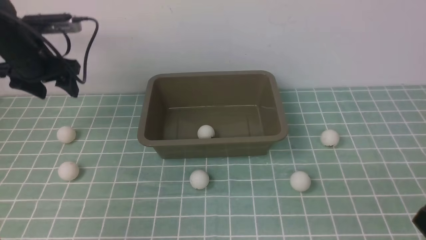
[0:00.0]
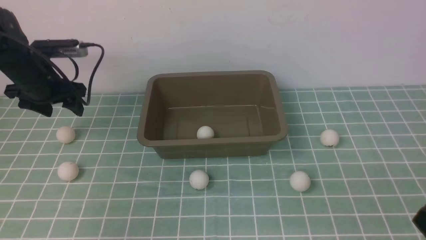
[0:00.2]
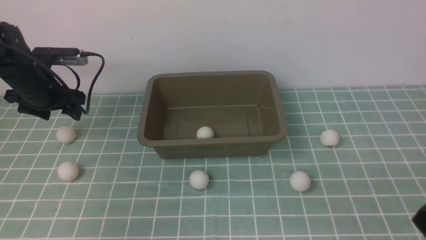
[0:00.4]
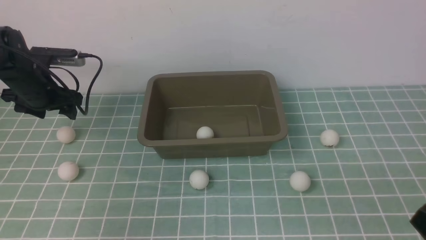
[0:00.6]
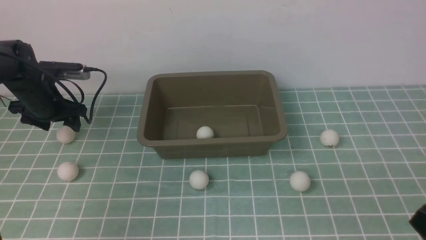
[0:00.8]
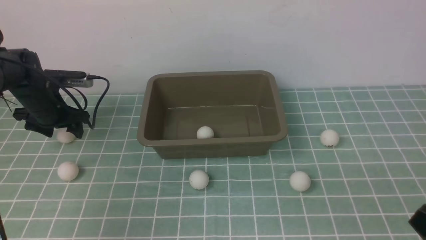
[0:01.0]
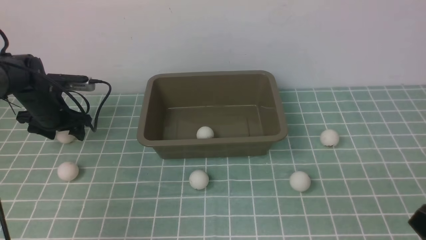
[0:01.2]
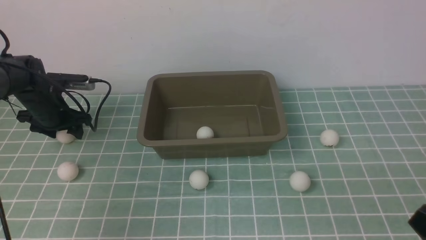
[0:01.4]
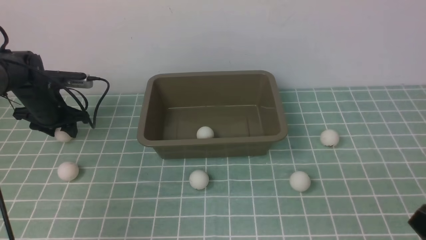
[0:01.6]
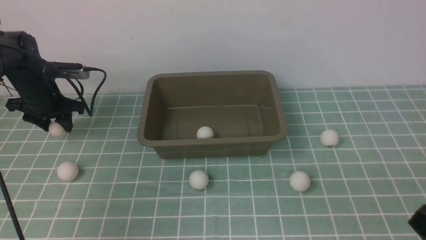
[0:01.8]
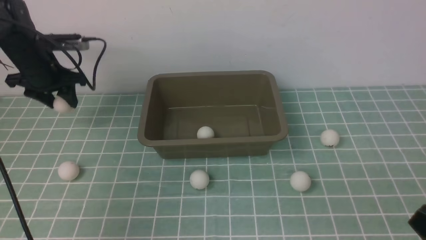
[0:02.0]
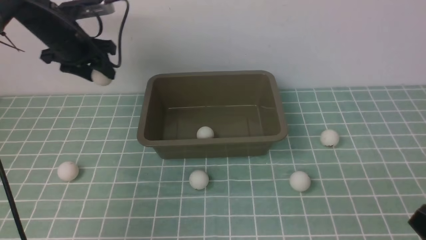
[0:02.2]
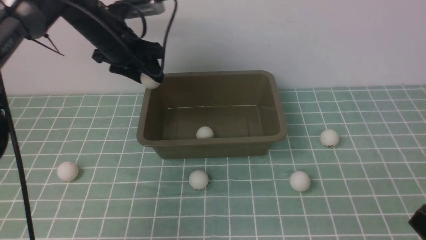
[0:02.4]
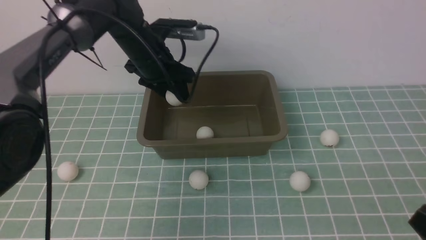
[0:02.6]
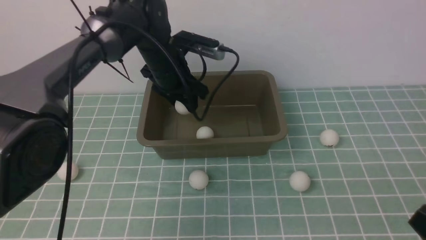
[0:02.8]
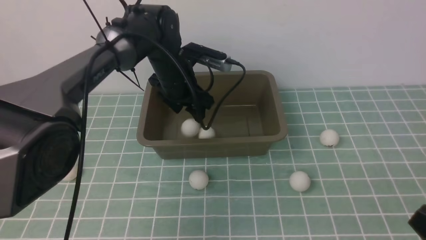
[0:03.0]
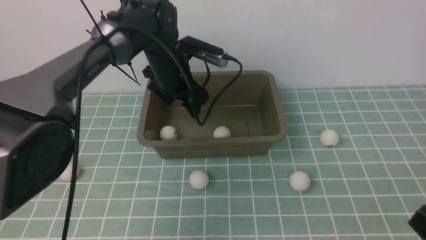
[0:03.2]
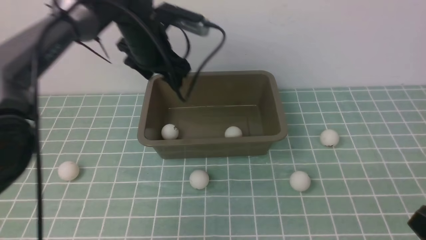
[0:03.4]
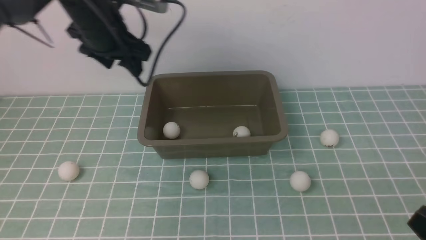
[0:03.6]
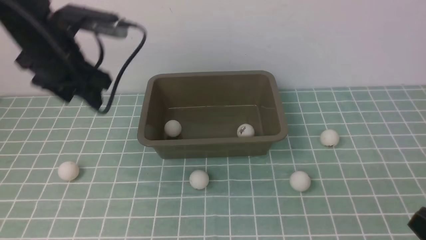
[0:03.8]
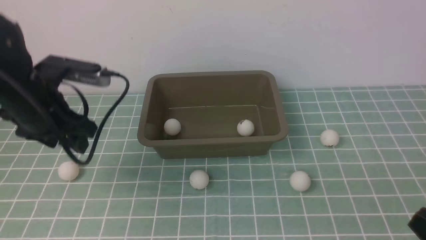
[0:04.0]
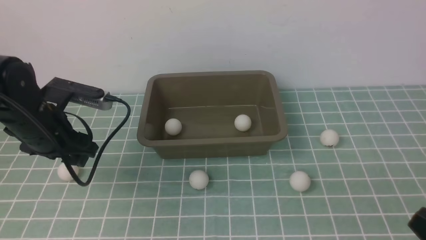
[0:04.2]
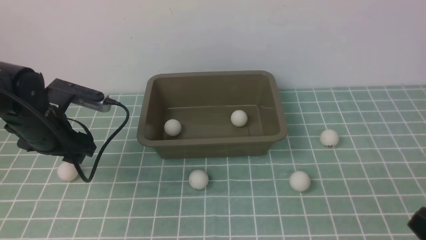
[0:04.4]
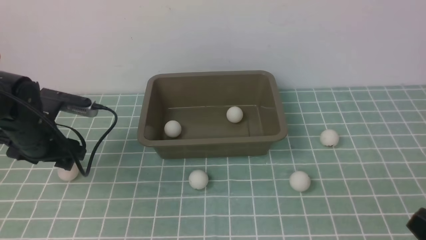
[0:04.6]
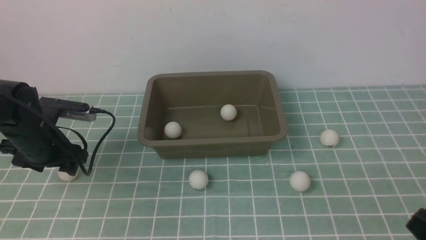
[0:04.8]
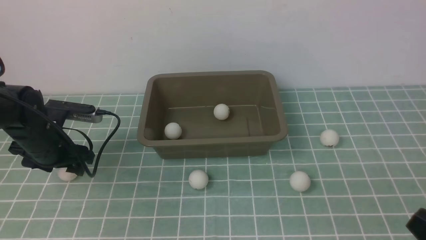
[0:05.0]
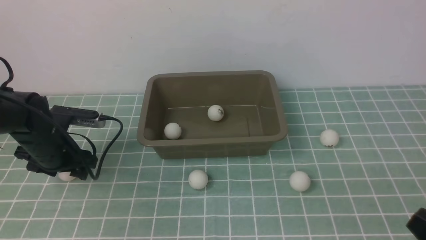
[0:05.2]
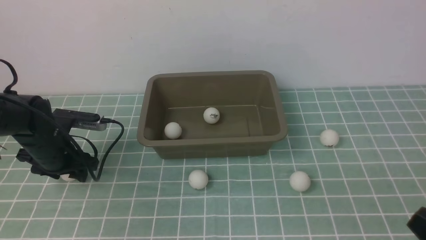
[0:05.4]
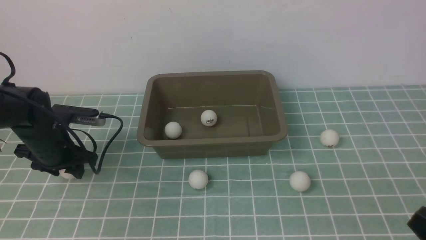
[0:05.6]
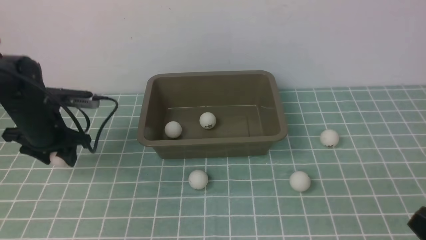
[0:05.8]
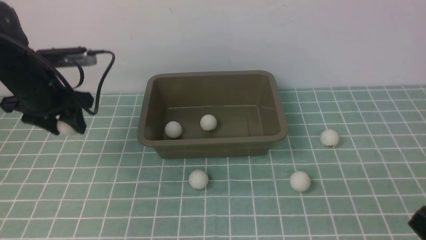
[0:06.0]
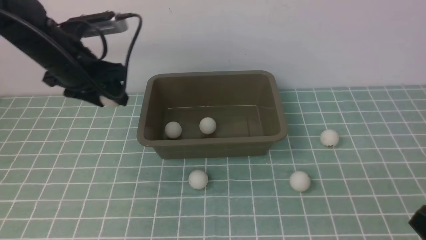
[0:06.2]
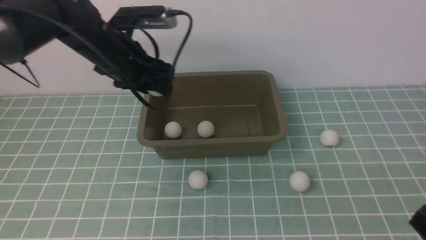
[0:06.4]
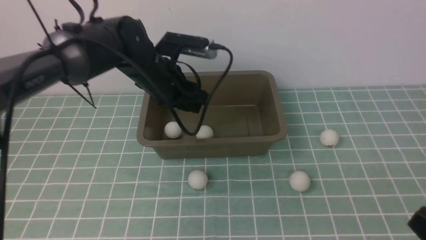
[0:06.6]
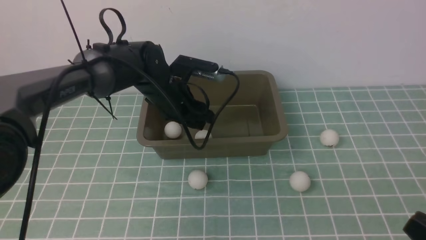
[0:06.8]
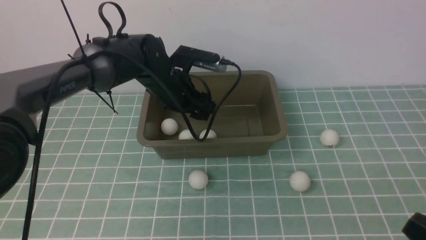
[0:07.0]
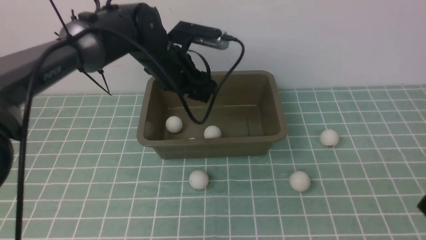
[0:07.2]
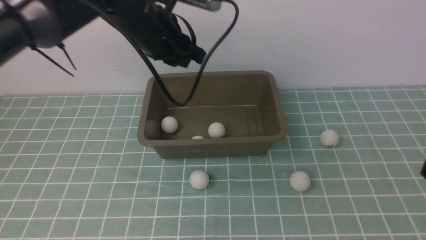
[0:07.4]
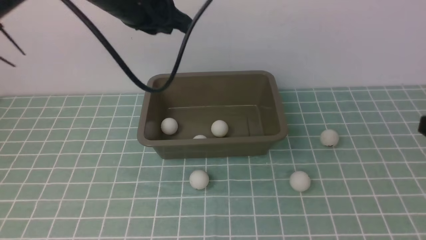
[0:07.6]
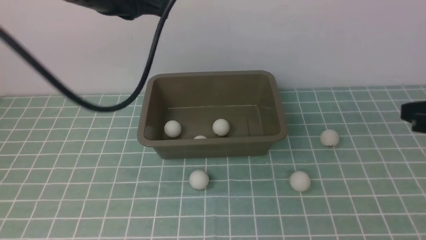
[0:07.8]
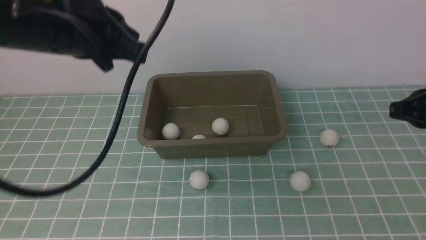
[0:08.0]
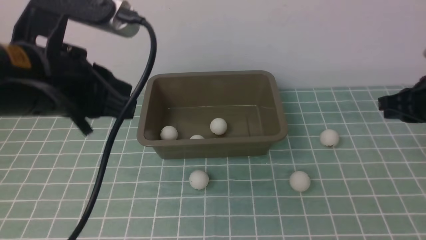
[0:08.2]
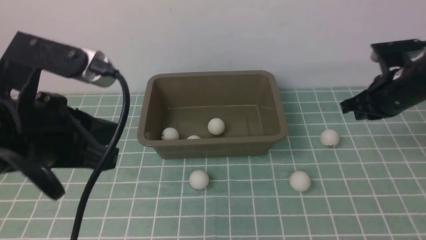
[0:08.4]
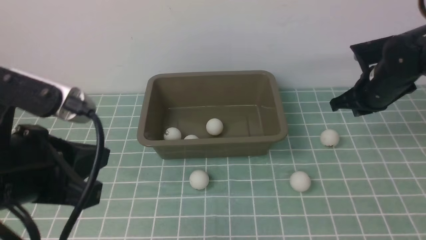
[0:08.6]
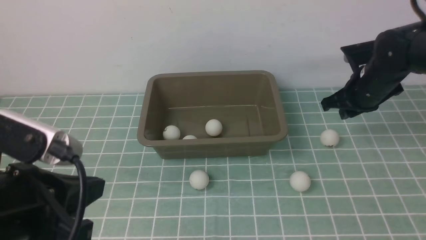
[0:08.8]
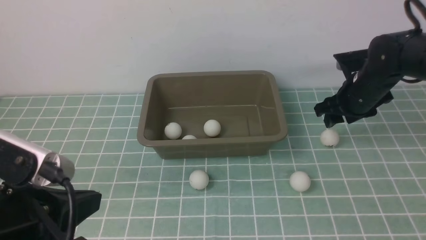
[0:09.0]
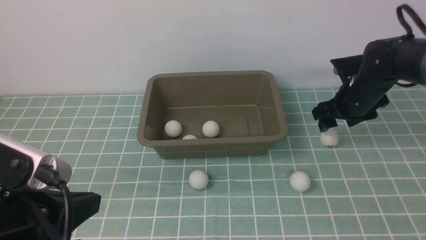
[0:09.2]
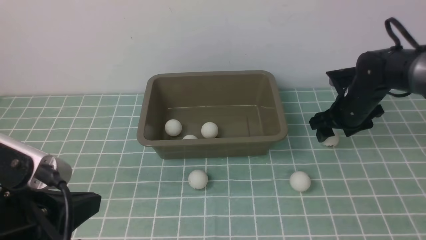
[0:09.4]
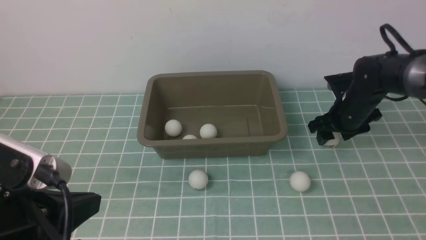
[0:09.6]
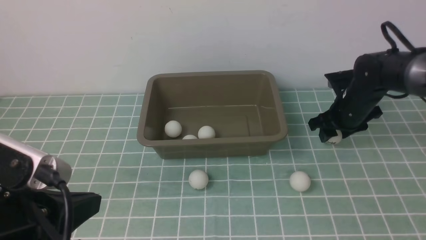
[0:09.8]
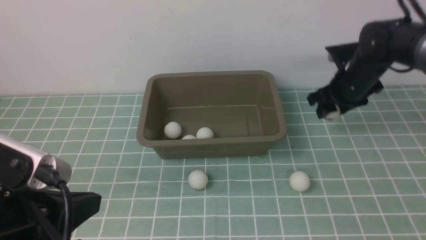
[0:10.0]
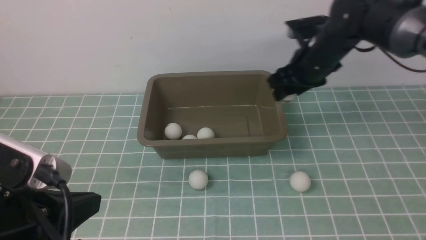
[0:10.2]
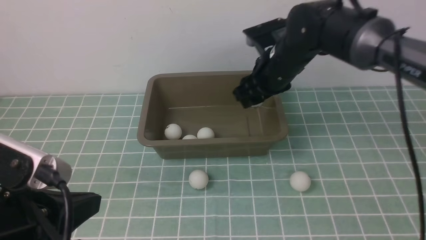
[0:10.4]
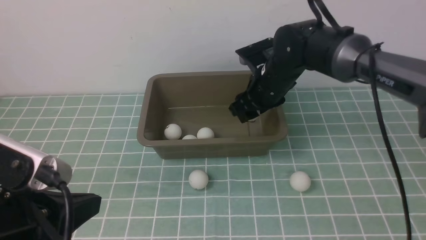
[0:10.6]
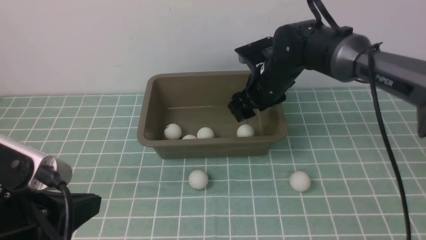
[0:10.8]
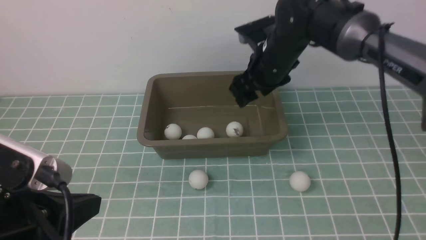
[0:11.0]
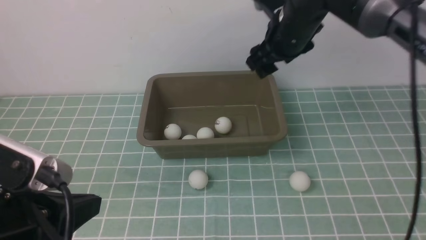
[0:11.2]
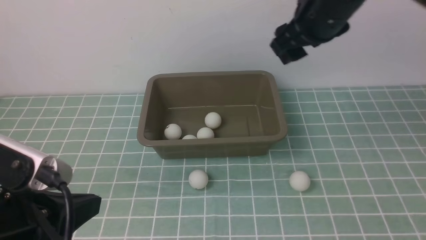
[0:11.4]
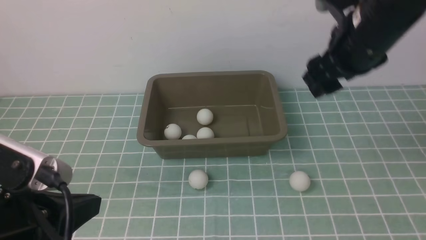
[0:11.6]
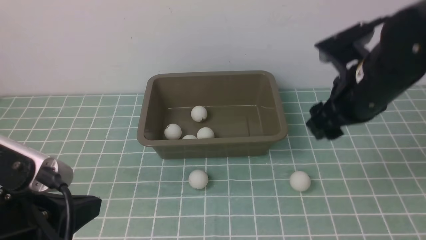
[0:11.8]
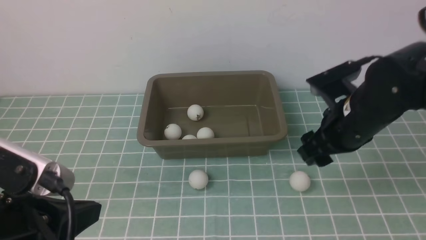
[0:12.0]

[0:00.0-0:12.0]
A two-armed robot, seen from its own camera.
Step, 0.0 to 1.8 s: use the left arm to clamp the table tennis ball closest to it.
Step, 2.0 to 3.2 s: use the left arm to put the table tennis ball into the box.
Step, 3.4 to 5.8 s: use the left arm to clamp the table tennis ball closest to it.
Step, 6.0 to 7.0 s: use the left arm to put the table tennis ball into the box.
Step, 7.2 to 10.0 s: use the right arm to clamp the table tennis ball closest to it.
Step, 10.2 to 10.8 s: use the right arm to put the table tennis ball into the box.
0.0 to 1.6 s: The left gripper reaches roughly 10 cm downward, then returns, and closes.
1.6 to 3.0 s: The left gripper is displaced to the right and upward by approximately 15 cm.
3.0 to 4.4 s: The left gripper moves downward, to the left and backward, about 20 cm.
4.4 to 6.0 s: The left gripper moves to the right, about 20 cm.
6.0 to 7.6 s: The left gripper is displaced backward and upward by approximately 30 cm, and closes. The right gripper is displaced forward by some 35 cm.
7.6 to 9.0 s: The left gripper goes some 5 cm backward. The right gripper goes about 10 cm forward and downward, and opens its fingers.
9.0 to 10.4 s: The right gripper is displaced upward and to the left by approximately 20 cm.
10.4 to 12.0 s: The right gripper is displaced downward and backward by some 20 cm.

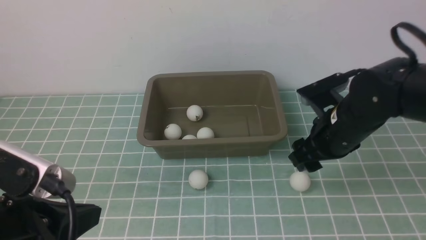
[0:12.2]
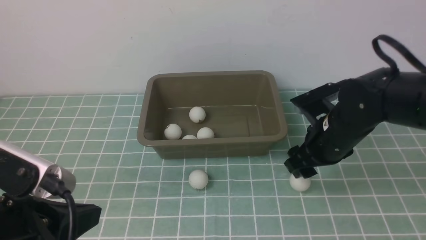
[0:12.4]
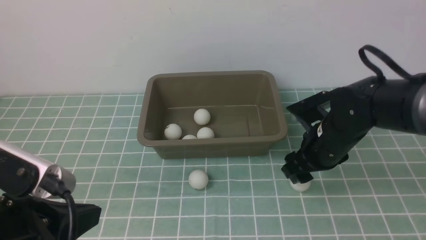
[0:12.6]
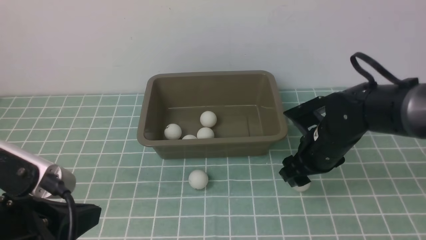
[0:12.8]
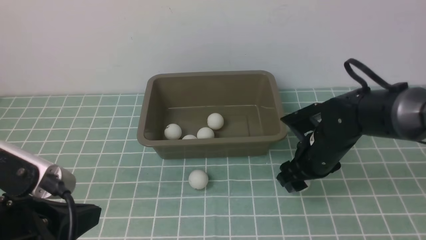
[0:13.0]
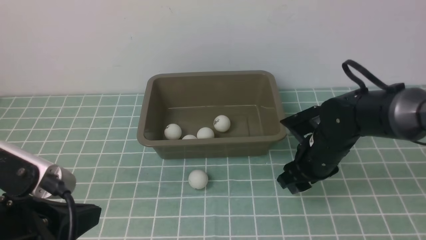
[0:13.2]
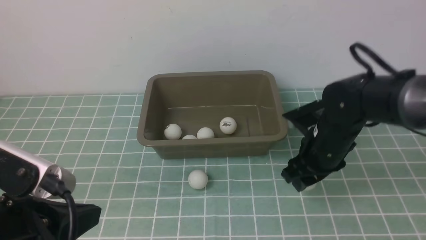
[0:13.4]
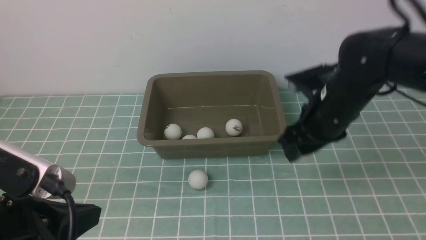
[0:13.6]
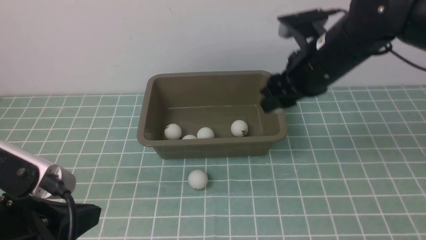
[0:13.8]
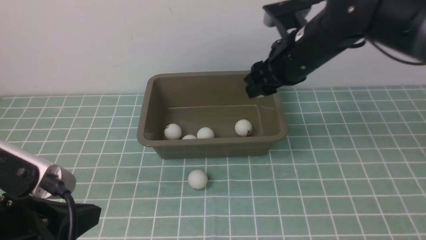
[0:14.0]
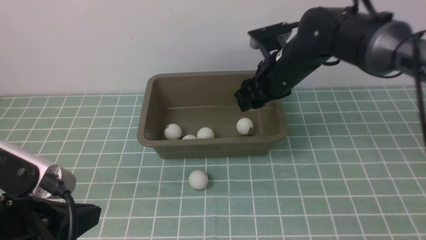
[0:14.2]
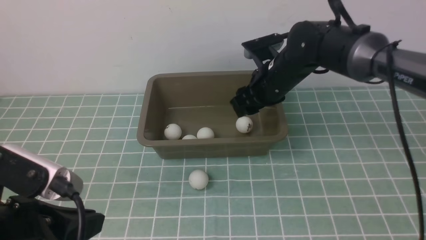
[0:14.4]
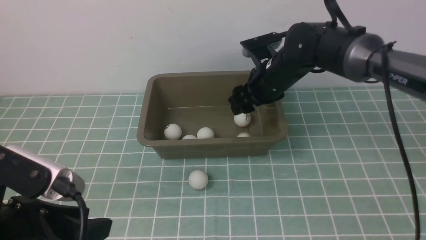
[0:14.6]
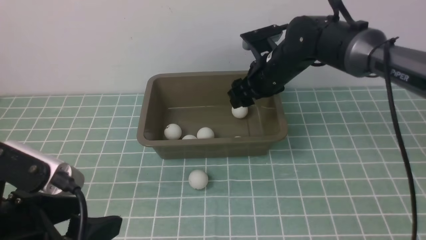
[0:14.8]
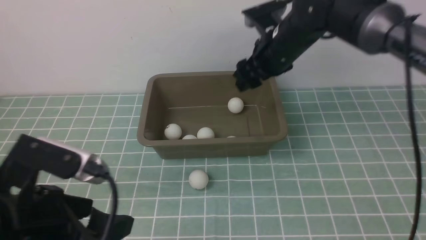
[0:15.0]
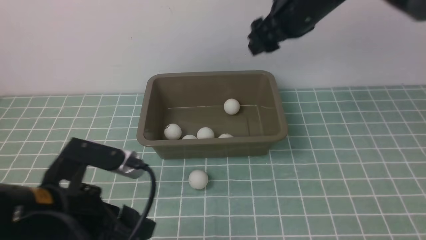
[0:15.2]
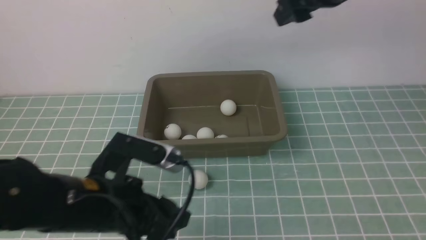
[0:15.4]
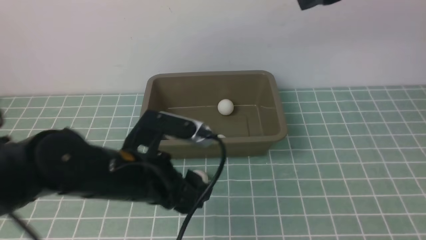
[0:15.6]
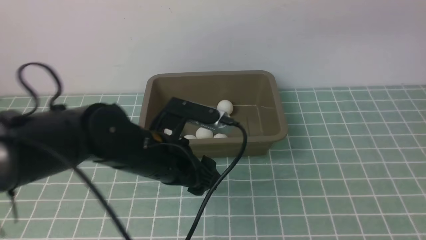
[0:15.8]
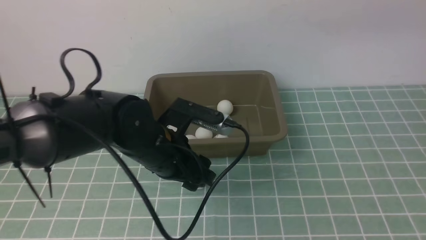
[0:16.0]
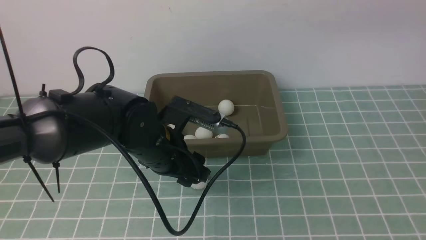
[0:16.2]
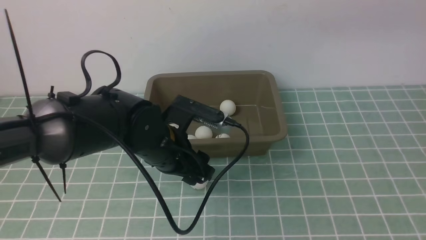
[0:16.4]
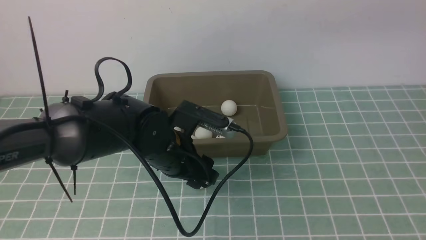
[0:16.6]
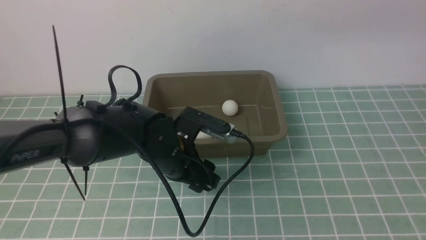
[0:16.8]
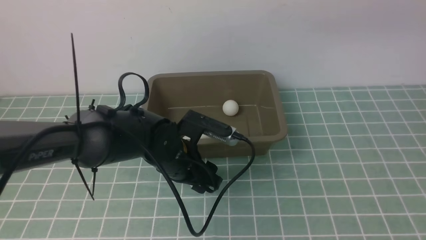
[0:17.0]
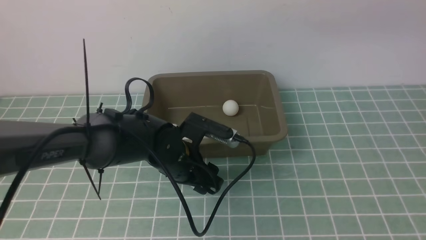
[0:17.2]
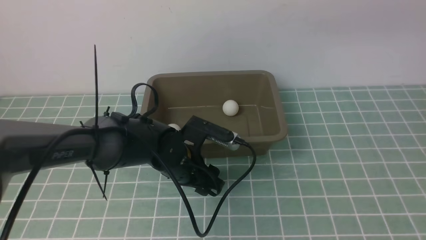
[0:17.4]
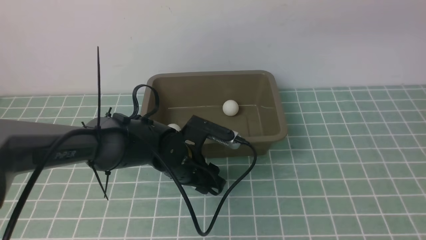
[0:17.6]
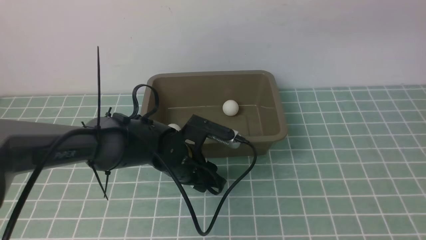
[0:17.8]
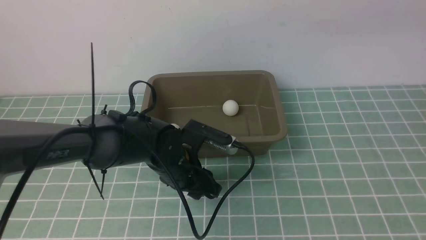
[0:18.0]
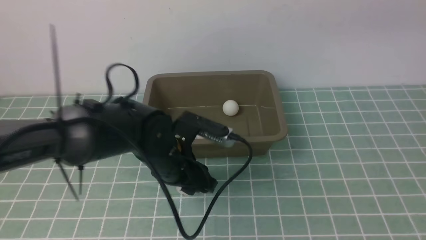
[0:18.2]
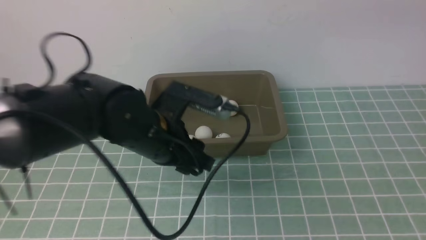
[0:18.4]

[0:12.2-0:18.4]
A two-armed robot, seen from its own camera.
Step, 12.2 to 13.4 s: use the right arm to clamp the table tennis ball closest to it.
Step, 13.6 to 14.6 s: use the right arm to put the table tennis ball into the box.
Step, 14.8 to 18.0 s: use the left arm to clamp the table tennis ball closest to it.
12.2 to 13.8 s: The right gripper travels upward, forward and to the left by some 15 cm.
13.8 to 15.4 s: The left gripper goes some 10 cm forward, to the right and downward, and opens its fingers. The right gripper travels upward by about 15 cm.
15.4 to 16.8 s: The left gripper travels forward, to the right and downward by some 15 cm. The right gripper travels upward and backward by roughly 10 cm.
16.8 to 18.4 s: The right gripper moves about 5 cm, and closes, while the left gripper goes approximately 5 cm upward.
